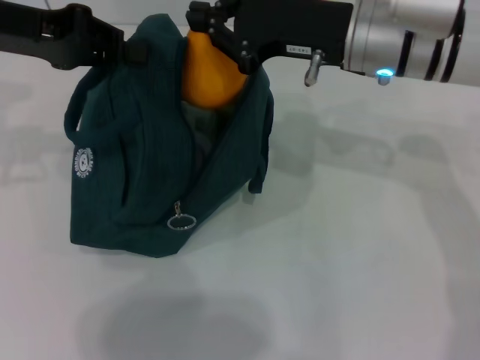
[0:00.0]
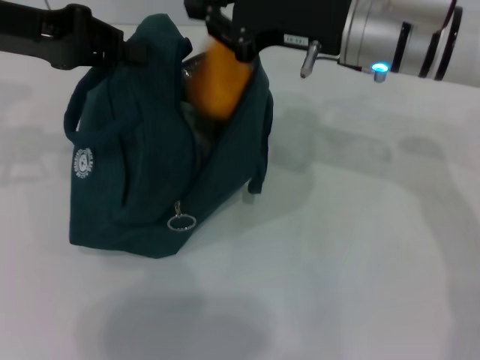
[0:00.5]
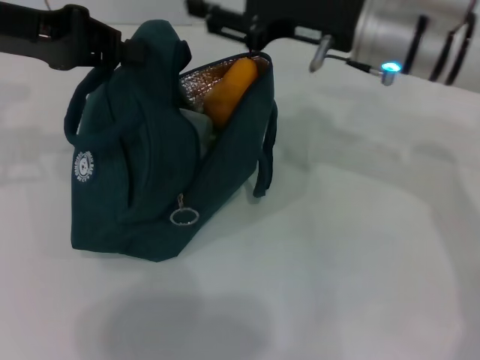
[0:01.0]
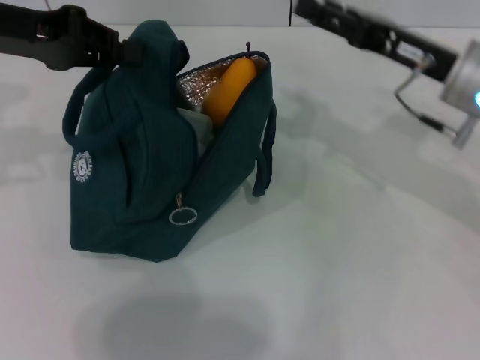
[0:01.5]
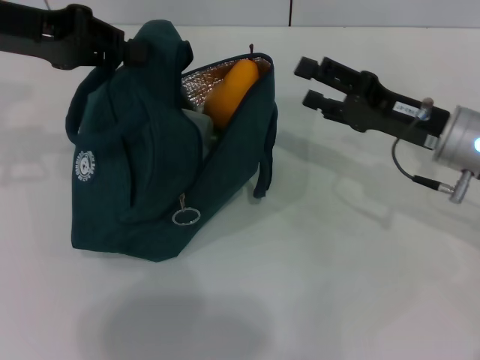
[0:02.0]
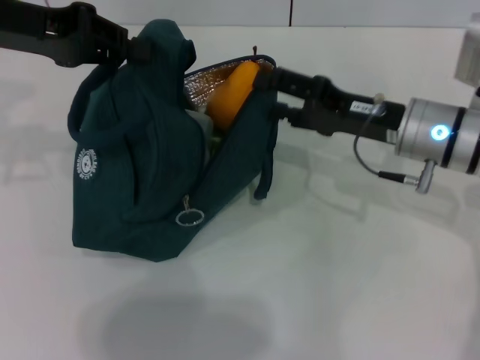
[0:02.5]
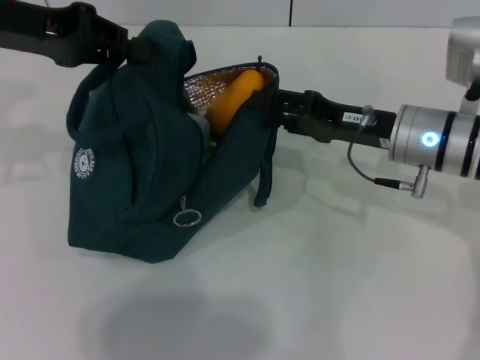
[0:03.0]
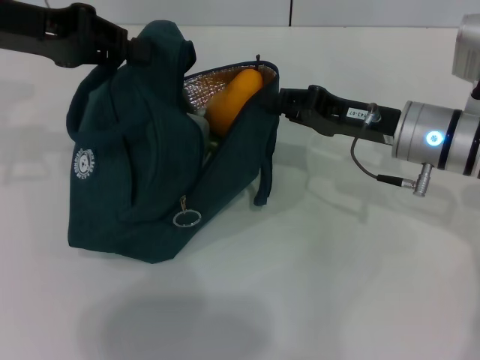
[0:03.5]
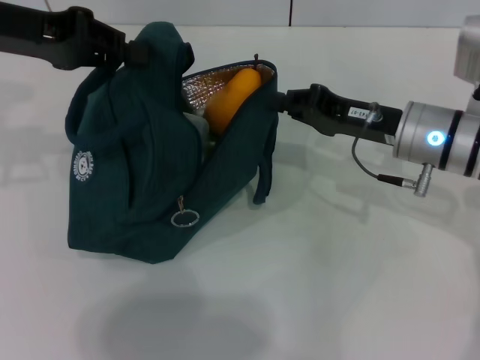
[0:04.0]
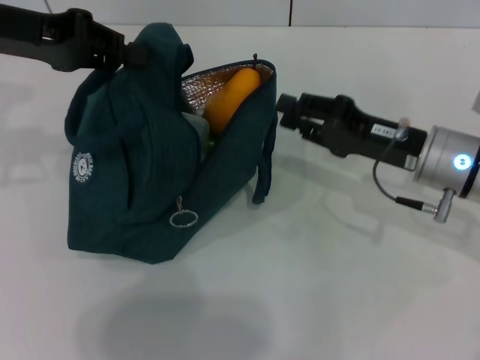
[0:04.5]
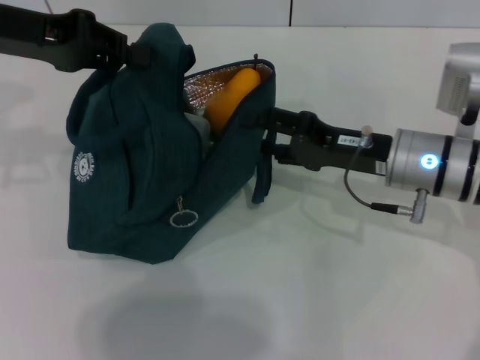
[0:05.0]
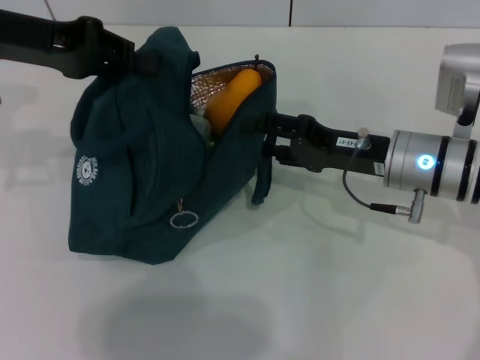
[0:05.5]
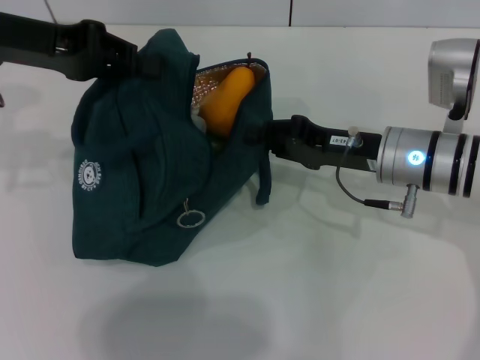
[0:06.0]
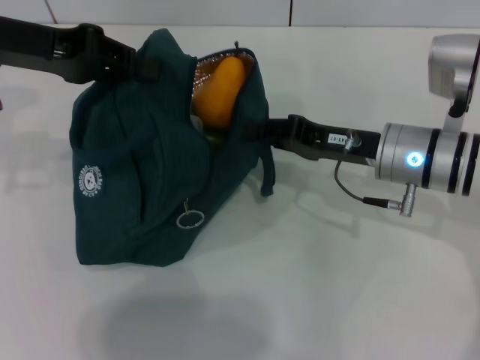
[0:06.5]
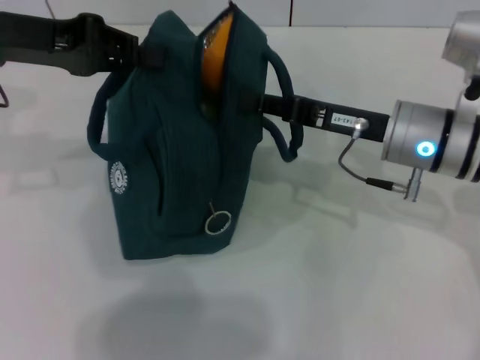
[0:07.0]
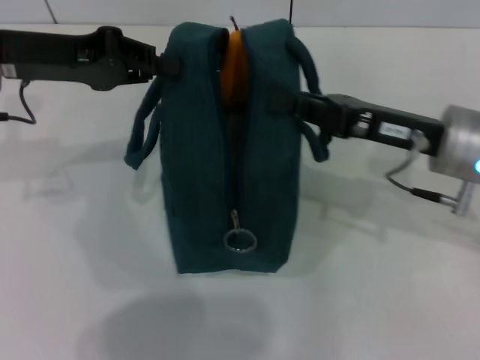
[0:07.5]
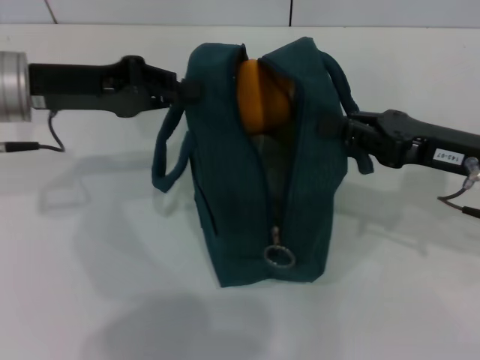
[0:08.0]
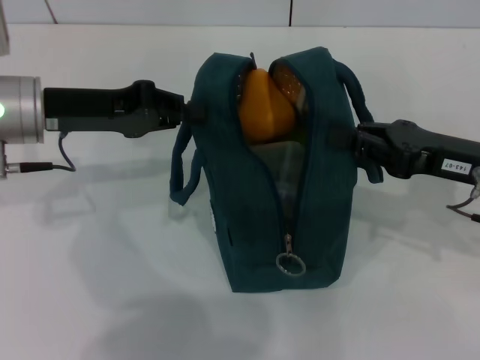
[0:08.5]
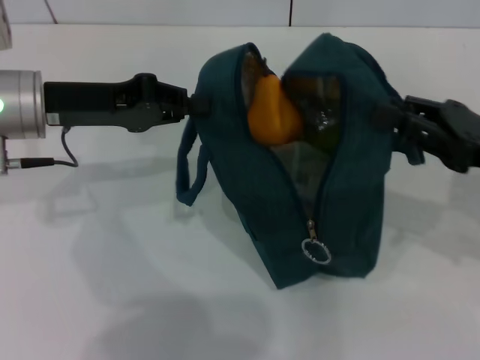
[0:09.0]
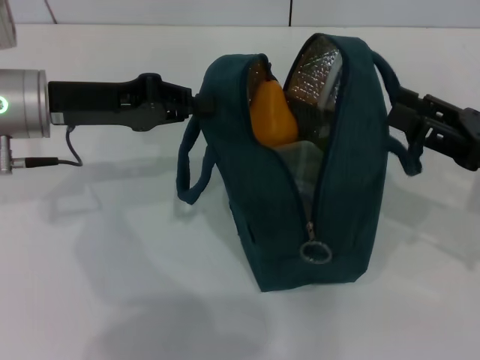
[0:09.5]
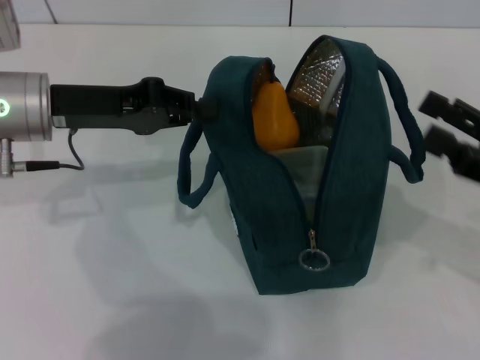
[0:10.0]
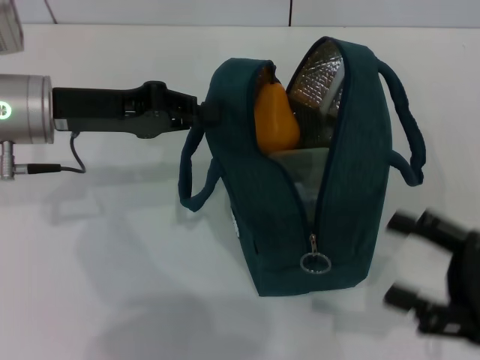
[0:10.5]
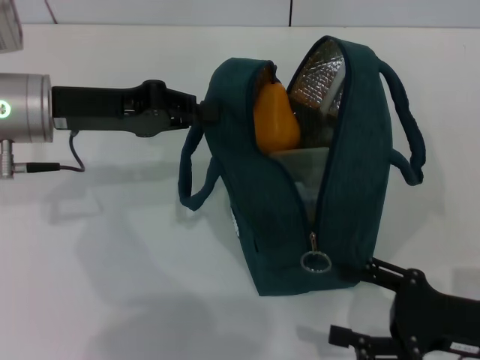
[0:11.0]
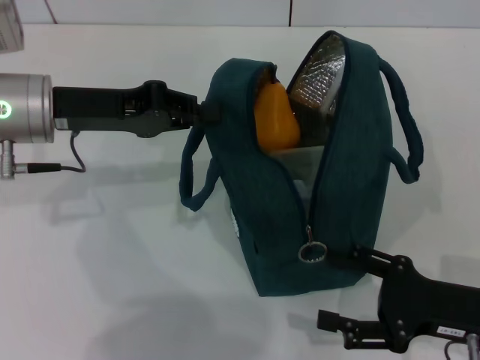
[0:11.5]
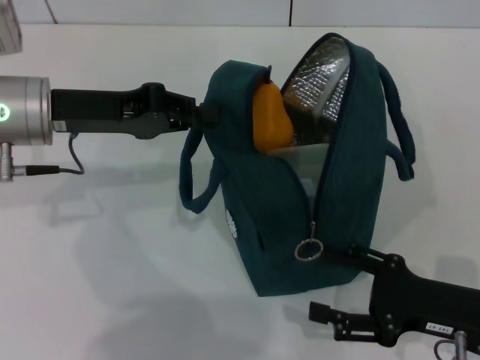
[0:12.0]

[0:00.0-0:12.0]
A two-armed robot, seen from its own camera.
Step, 0:01.0 to 0:09.5: Hold the lunch bag with your right hand.
0:00.0 to 0:02.0: The right gripper is displaced to the right and downward by roughly 15 cm, and opens up.
0:02.0 to 0:04.0: The right gripper closes up.
0:04.0 to 0:06.0: The right gripper opens.
0:06.0 to 0:08.0: The right gripper goes about 10 cm to the right; the left gripper is displaced downward by about 5 cm.
0:08.0 to 0:10.0: The right gripper goes about 5 cm to the right, and opens.
0:10.0 to 0:12.0: The right gripper goes about 10 cm downward and to the left.

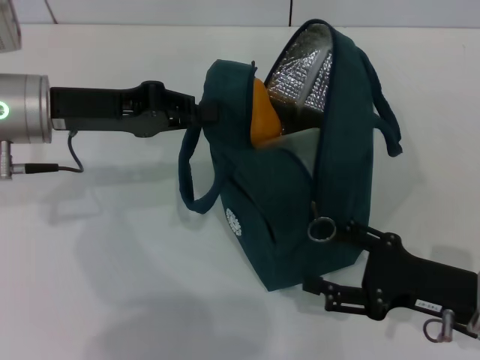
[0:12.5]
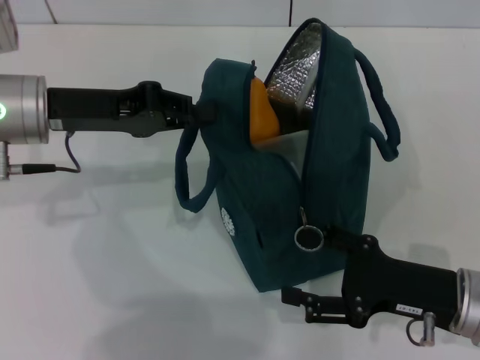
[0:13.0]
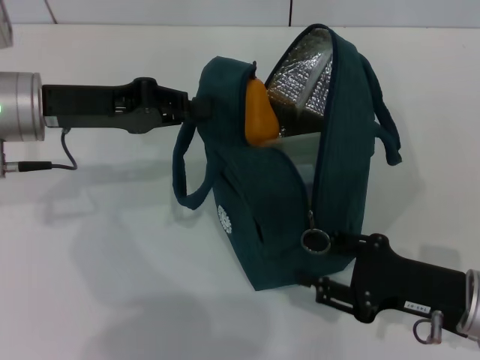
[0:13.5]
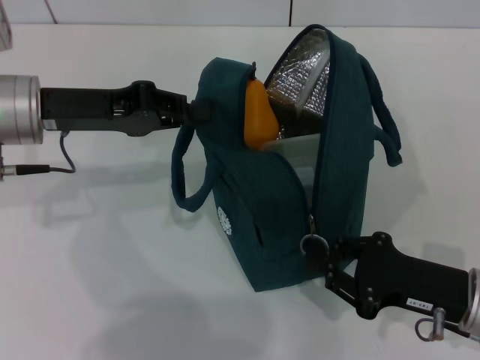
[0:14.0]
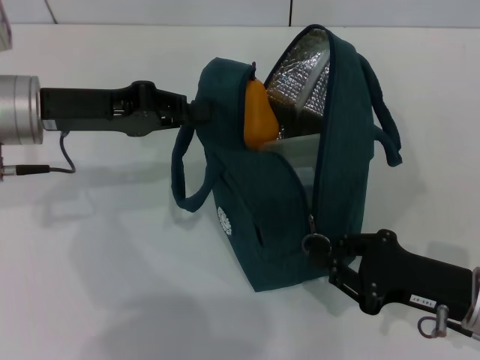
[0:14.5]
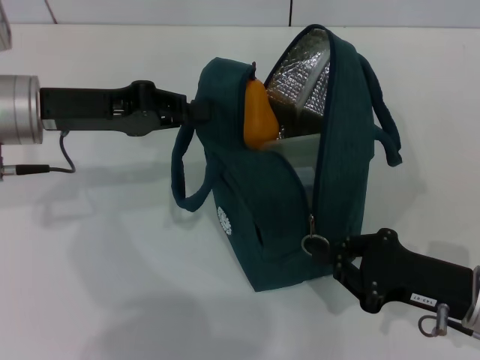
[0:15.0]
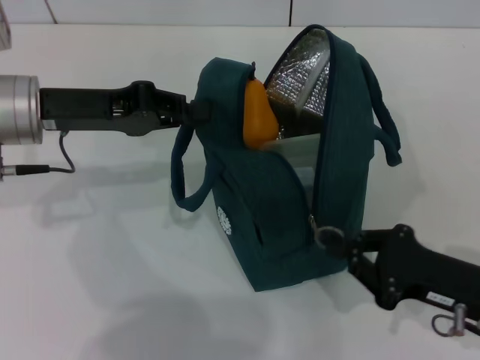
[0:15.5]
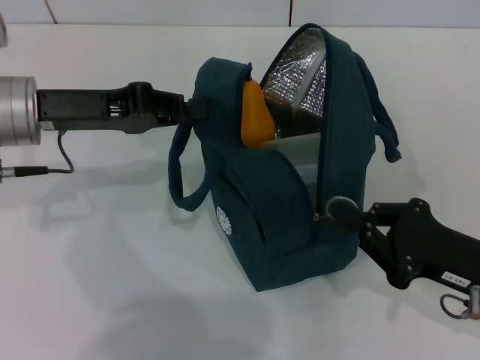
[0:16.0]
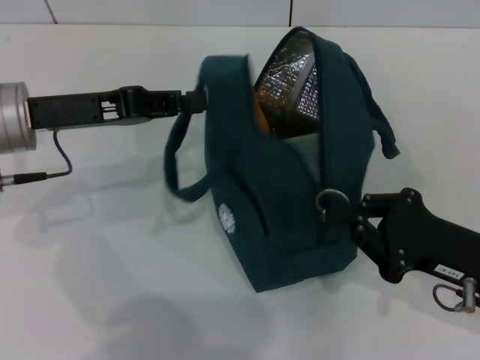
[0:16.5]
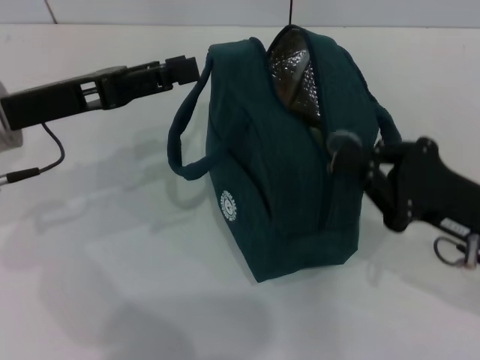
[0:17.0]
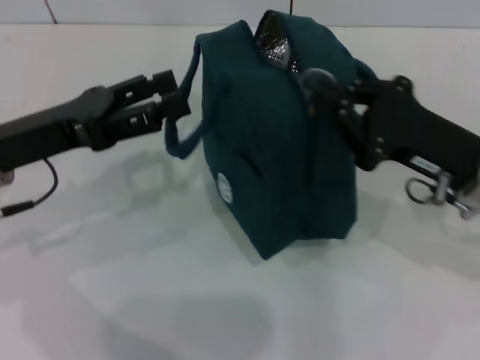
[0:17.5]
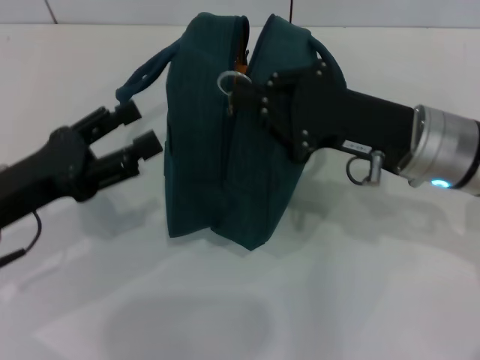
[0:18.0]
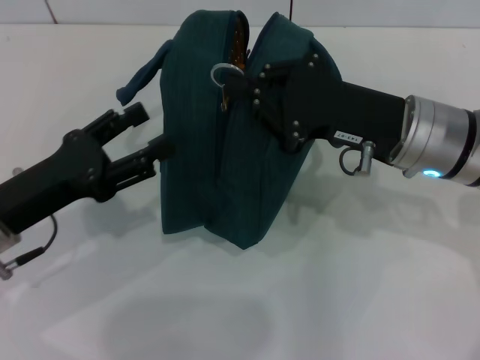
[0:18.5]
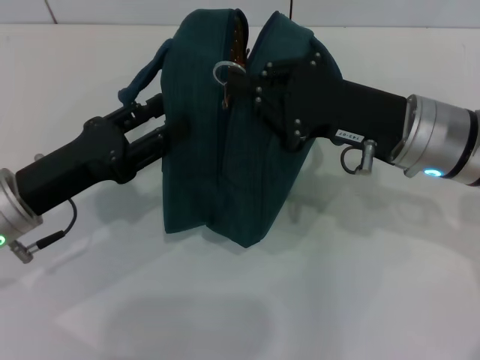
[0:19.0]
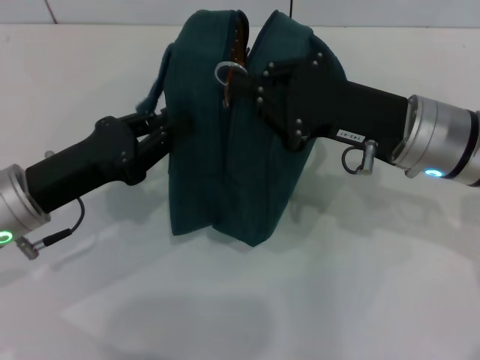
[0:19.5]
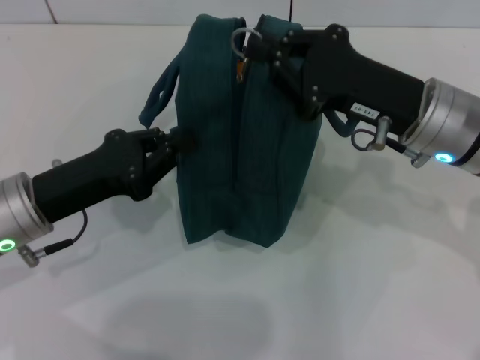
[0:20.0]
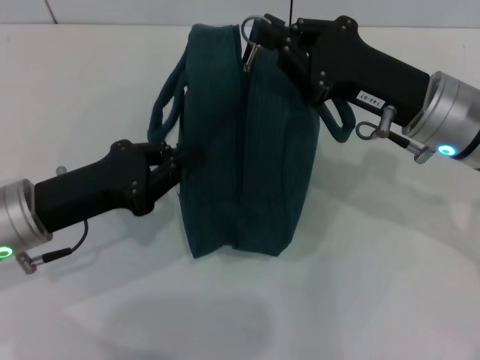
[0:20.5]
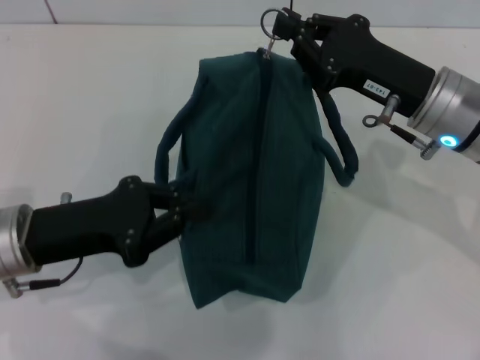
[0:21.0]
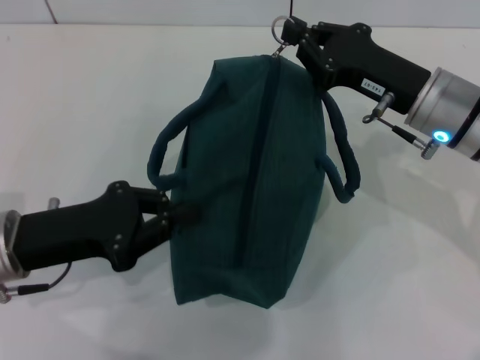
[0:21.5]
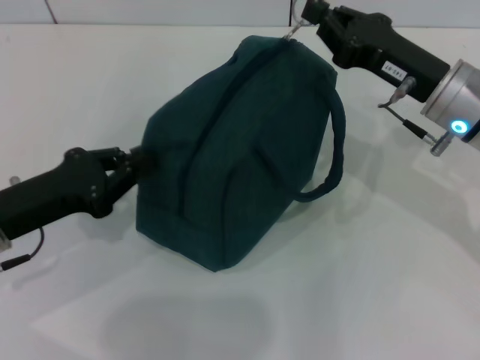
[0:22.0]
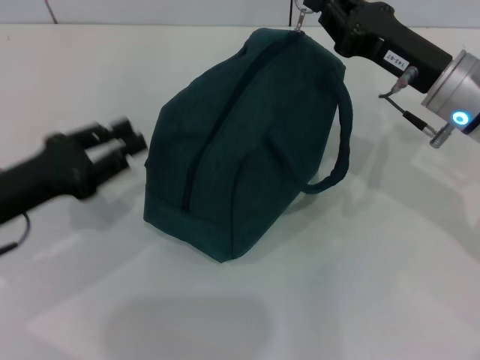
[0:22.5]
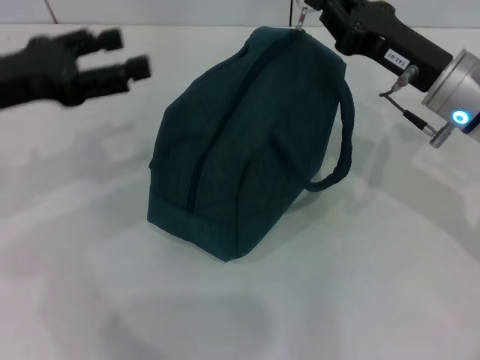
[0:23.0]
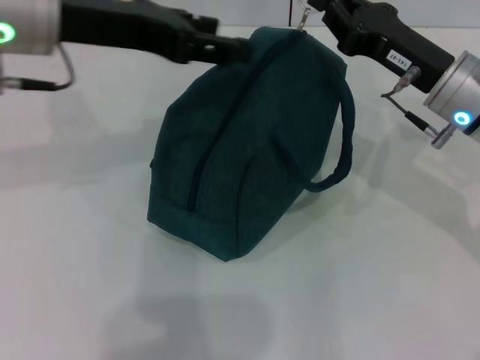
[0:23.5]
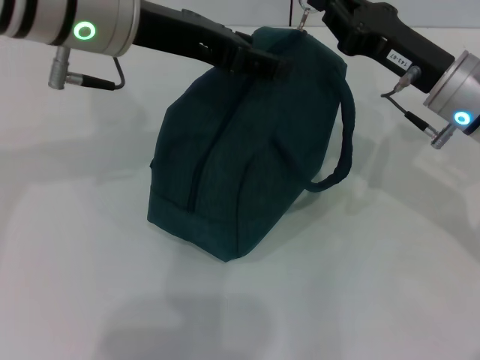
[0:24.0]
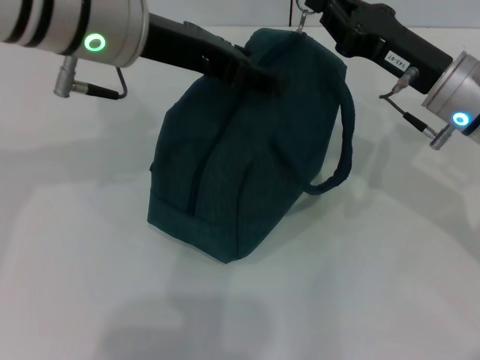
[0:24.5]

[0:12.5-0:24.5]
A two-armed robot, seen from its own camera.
Step, 0:12.5 to 0:16.0: Hold the lunch bag with your left hand.
0:12.5 to 0:14.5: The right gripper closes its fingers.
0:14.5 to 0:16.5: The grippers move only a little.
0:16.5 to 0:18.5: The right gripper shifts approximately 15 cm forward, to the left and upward, while the left gripper goes about 10 cm backward and downward, and opens.
0:18.5 to 0:20.5: The left gripper closes up.
0:22.5 to 0:24.5: The left gripper shifts approximately 25 cm upward, to the right and forward, and opens its fingers.

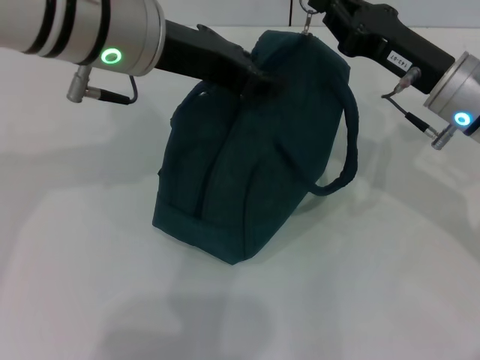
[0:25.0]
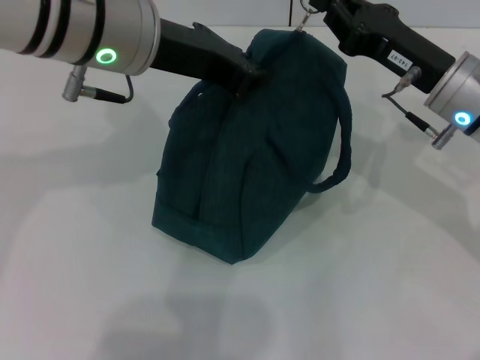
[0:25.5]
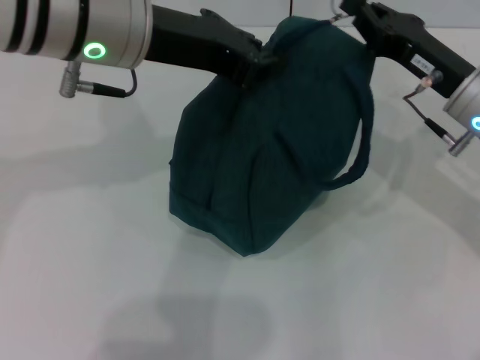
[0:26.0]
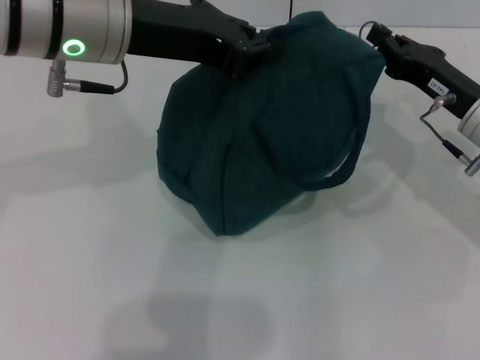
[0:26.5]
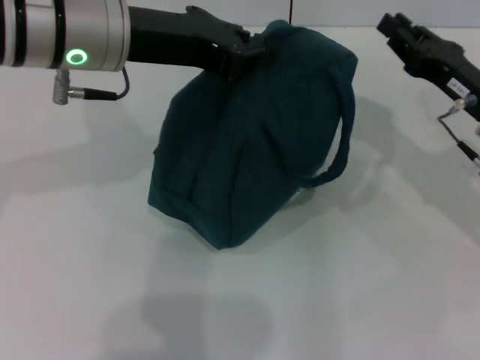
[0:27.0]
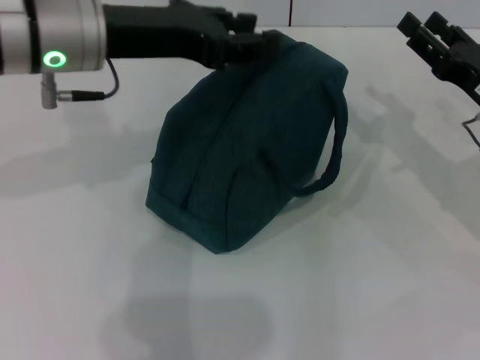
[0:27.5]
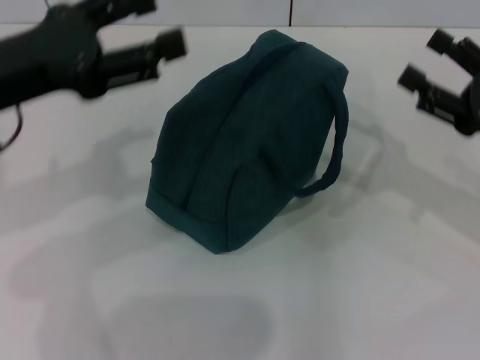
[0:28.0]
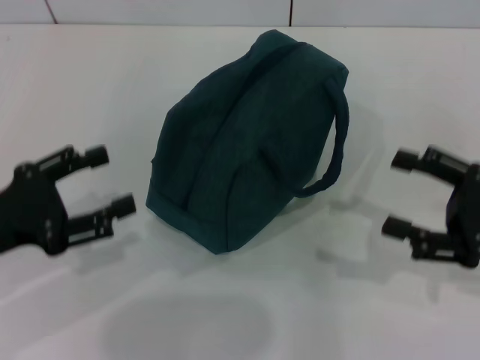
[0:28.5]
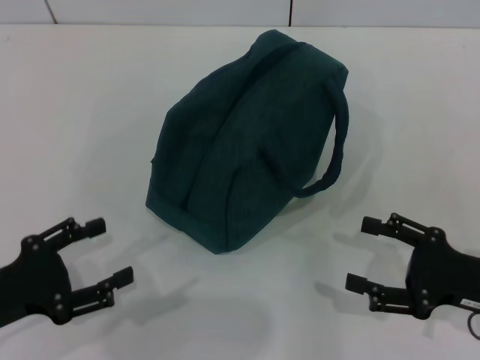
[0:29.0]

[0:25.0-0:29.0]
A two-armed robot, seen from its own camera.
0:25.0 to 0:27.0: The left gripper closes. The right gripper moves to the right, roughly 5 cm.
0:27.0 to 0:29.0: The left gripper goes about 30 cm downward, backward and to the left, and opens its fingers. The right gripper heads backward and downward, covering about 15 cm, and opens up.
